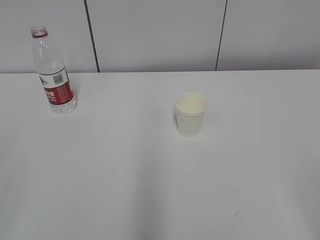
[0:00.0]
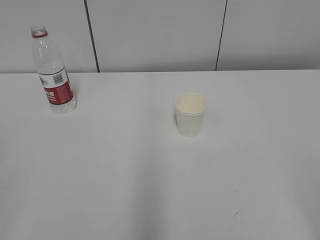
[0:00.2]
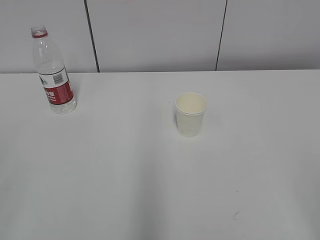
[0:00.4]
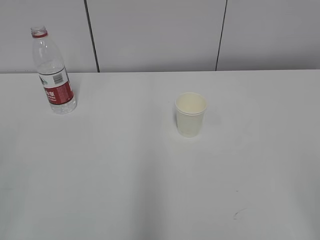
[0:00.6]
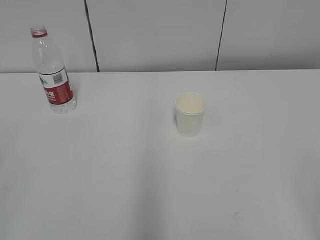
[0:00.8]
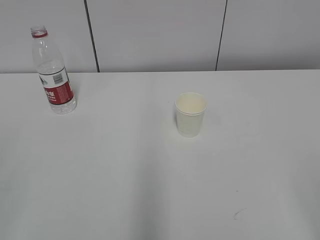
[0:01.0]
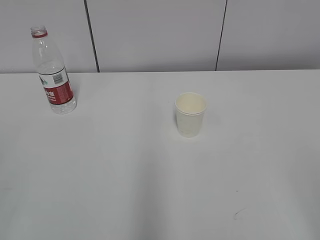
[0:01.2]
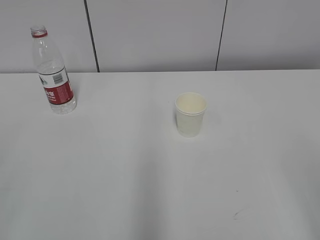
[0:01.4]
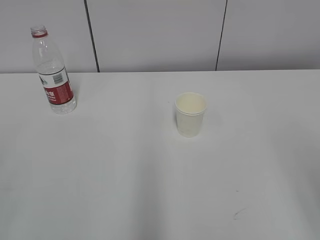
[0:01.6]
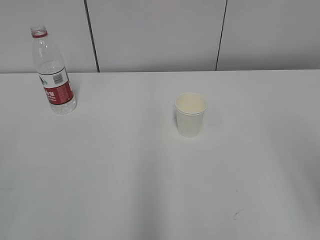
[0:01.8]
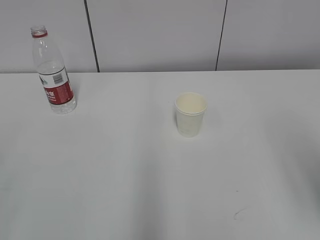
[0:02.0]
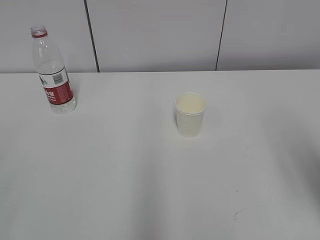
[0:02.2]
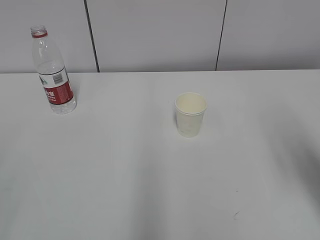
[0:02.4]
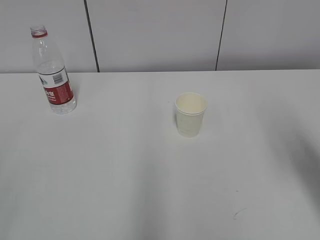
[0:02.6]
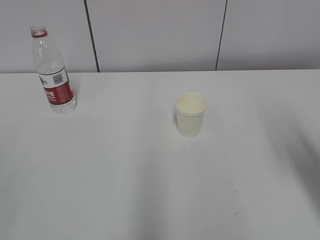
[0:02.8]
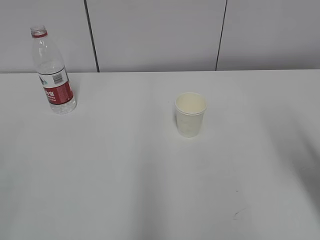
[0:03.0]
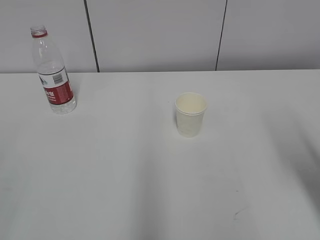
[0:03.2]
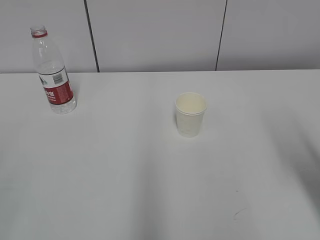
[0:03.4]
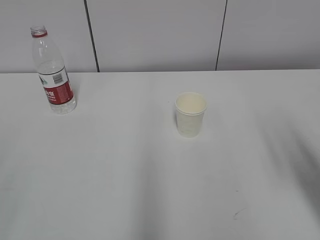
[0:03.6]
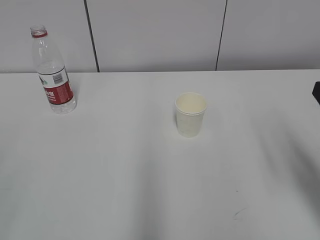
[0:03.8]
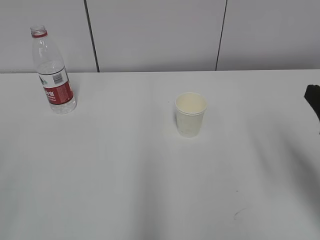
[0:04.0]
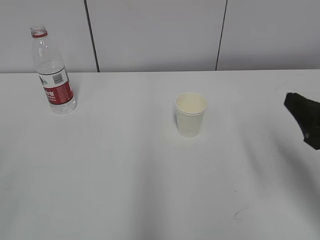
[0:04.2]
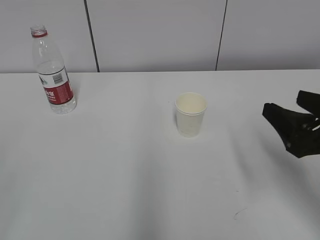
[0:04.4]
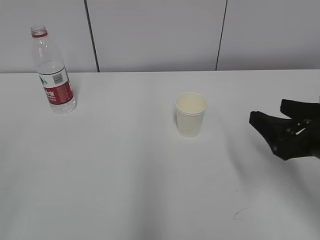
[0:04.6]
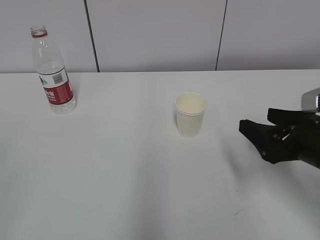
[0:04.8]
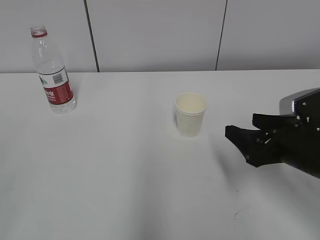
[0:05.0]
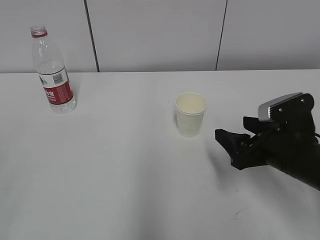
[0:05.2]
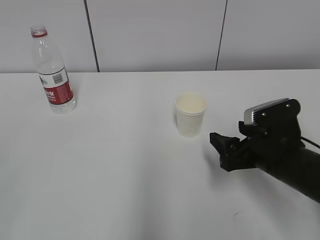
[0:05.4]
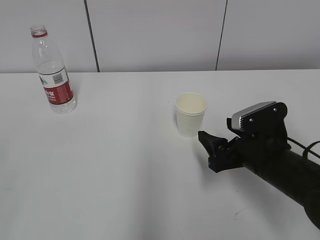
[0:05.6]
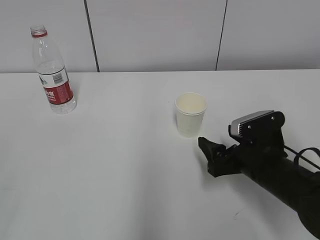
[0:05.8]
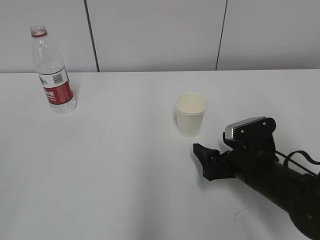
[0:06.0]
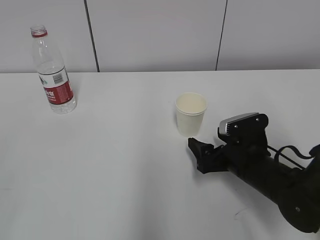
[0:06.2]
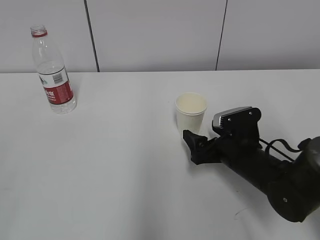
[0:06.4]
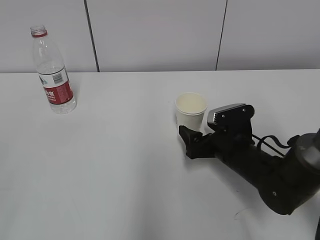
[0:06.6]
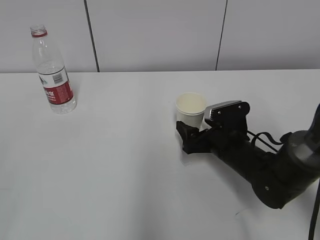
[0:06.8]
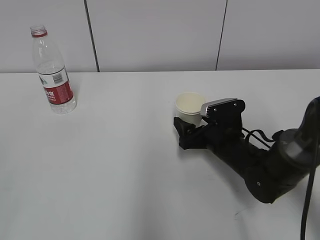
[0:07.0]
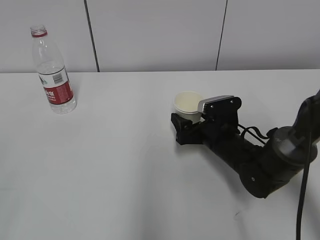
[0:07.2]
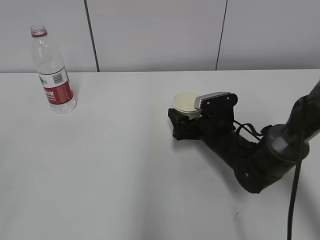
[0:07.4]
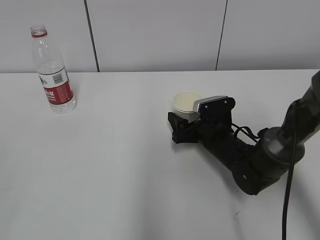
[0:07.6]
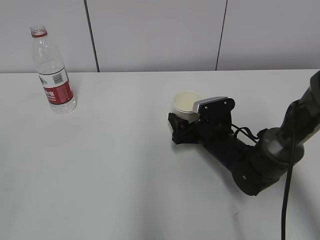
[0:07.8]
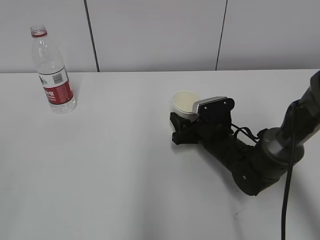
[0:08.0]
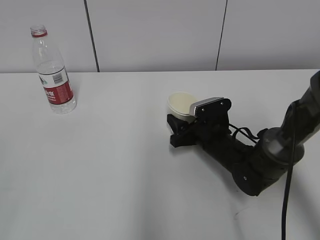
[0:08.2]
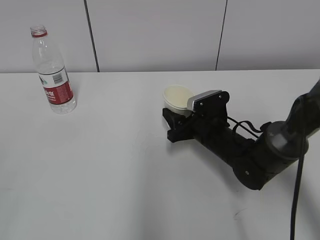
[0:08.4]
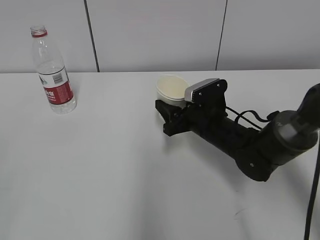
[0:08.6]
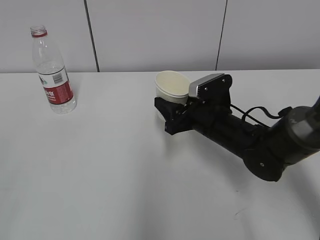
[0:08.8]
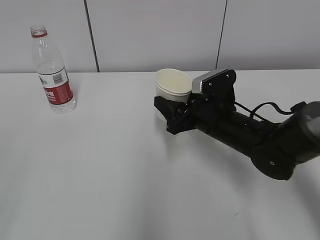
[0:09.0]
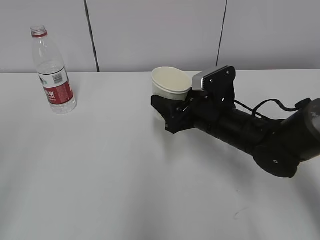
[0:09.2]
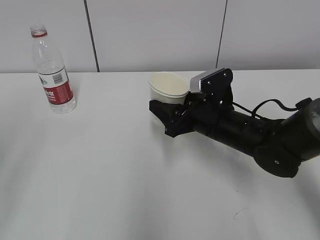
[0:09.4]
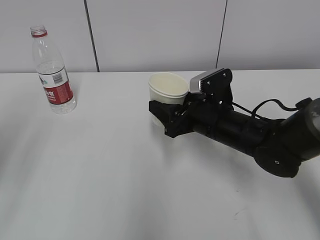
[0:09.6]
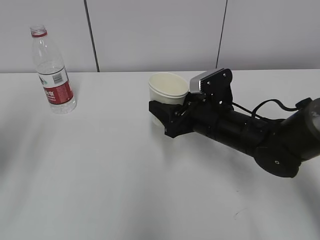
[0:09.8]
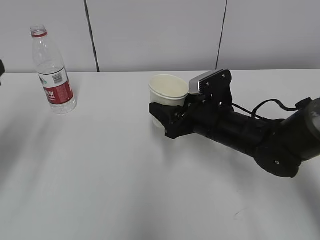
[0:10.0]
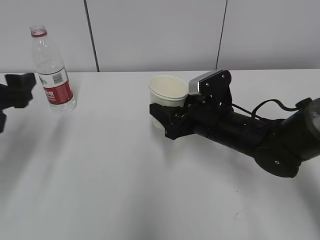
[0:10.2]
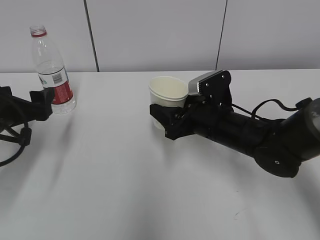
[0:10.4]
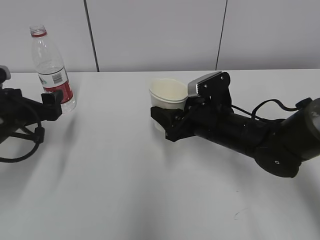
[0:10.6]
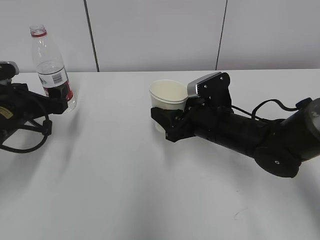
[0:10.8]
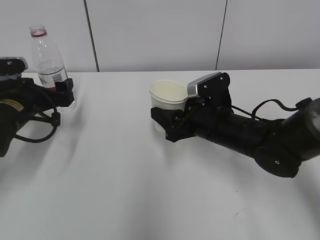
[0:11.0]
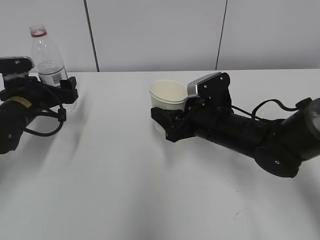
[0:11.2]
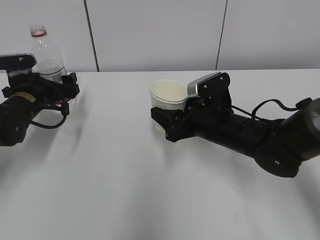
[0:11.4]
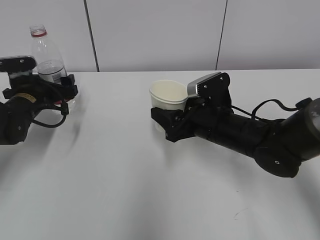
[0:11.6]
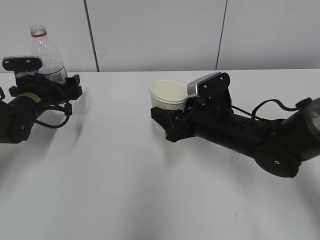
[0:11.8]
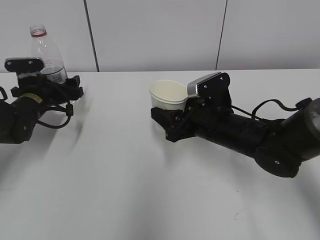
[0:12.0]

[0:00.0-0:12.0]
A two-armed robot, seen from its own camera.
Step, 0:00.0 to 0:06.6: Grab the paper cup with the right hand.
Step, 0:06.8 to 0:10.4: Grab the water bottle with the left hand.
0:01.6 to 0:03.0: The right gripper is displaced forward and downward by roughly 15 cm.
0:03.0 to 0:04.4: The right gripper ends up some 5 cm from where it was, and opens up.
0:04.4 to 0:06.0: The right gripper heads downward, to the left and forward, covering approximately 15 cm, and opens its fingers.
0:06.0 to 0:07.6: The right gripper moves forward, roughly 10 cm.
0:07.6 to 0:09.0: The right gripper heads upward, covering approximately 10 cm, and closes up, while the left gripper opens its fingers.
0:09.0 to 0:10.4: The left gripper travels forward and downward by some 30 cm, and opens its fingers.
0:10.4 to 0:12.0: The left gripper goes about 15 cm forward and downward.

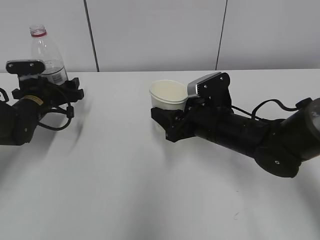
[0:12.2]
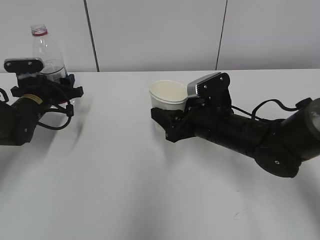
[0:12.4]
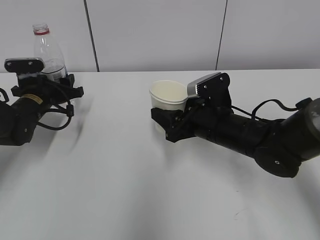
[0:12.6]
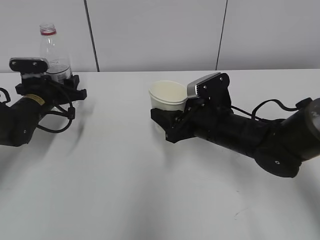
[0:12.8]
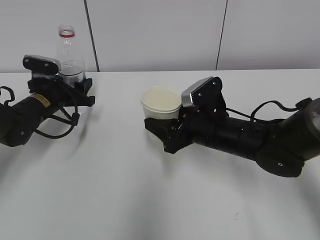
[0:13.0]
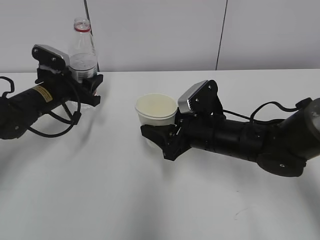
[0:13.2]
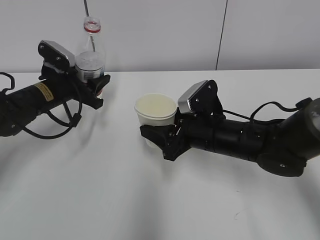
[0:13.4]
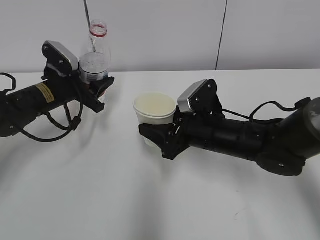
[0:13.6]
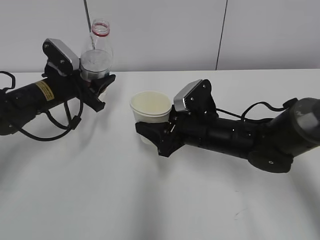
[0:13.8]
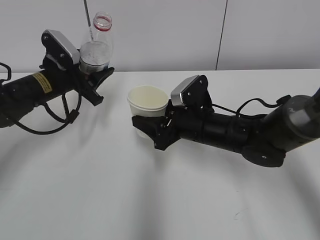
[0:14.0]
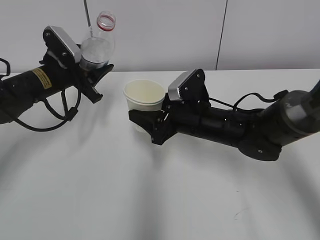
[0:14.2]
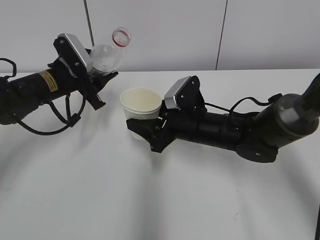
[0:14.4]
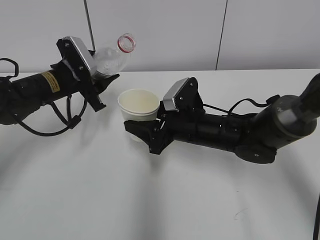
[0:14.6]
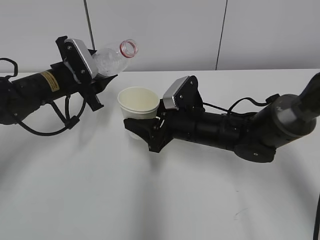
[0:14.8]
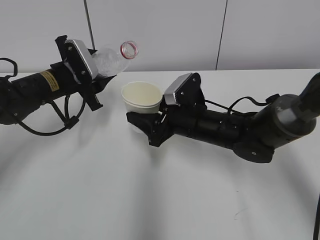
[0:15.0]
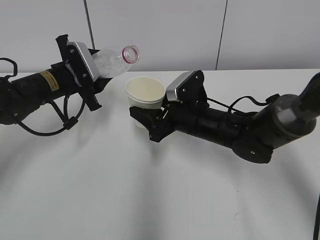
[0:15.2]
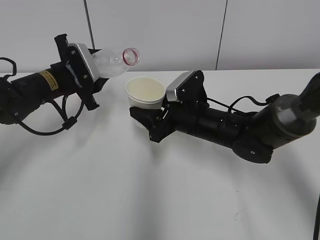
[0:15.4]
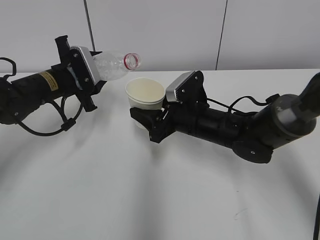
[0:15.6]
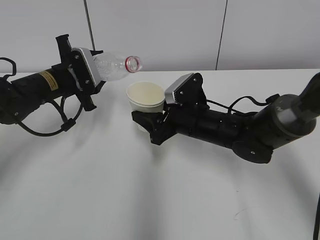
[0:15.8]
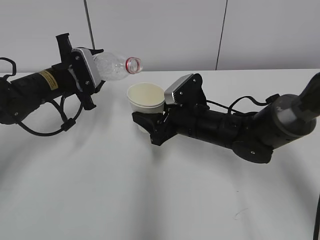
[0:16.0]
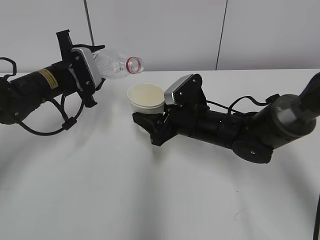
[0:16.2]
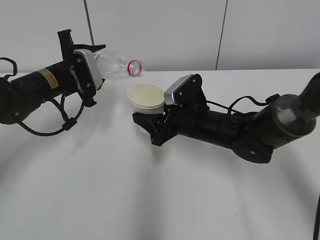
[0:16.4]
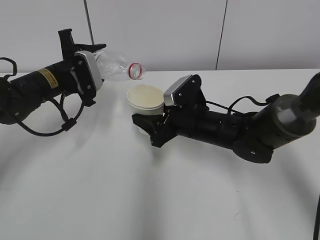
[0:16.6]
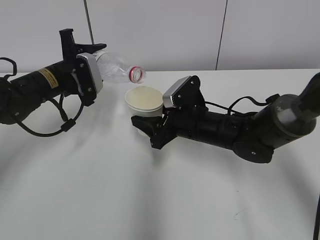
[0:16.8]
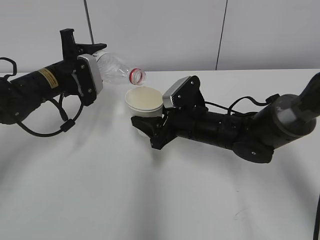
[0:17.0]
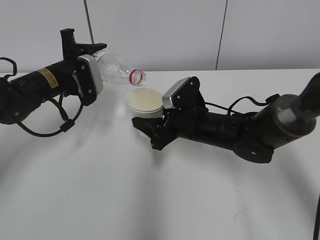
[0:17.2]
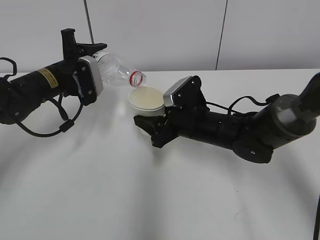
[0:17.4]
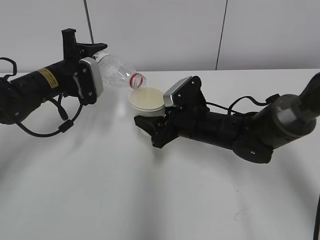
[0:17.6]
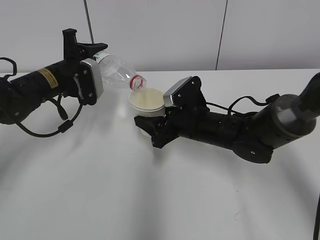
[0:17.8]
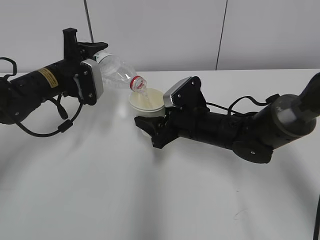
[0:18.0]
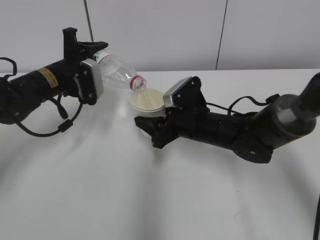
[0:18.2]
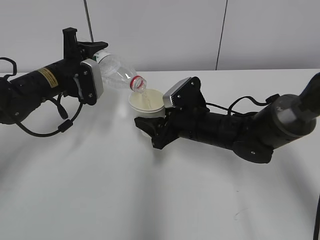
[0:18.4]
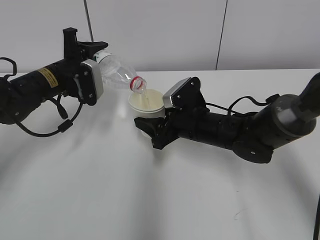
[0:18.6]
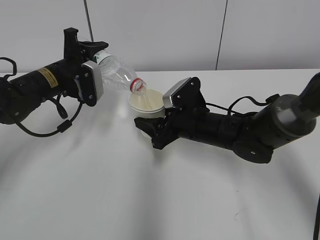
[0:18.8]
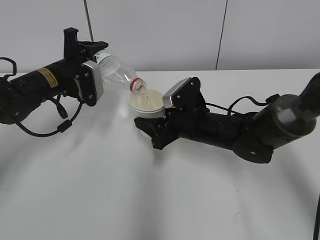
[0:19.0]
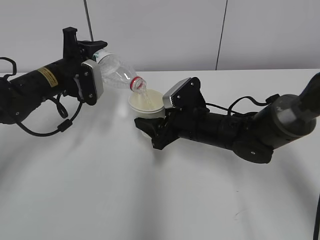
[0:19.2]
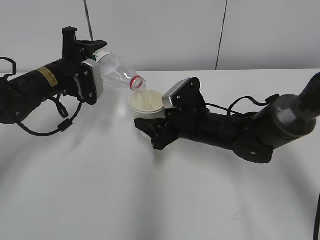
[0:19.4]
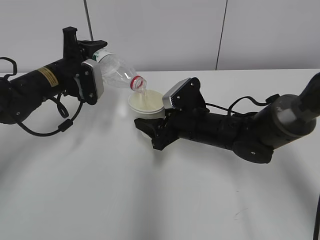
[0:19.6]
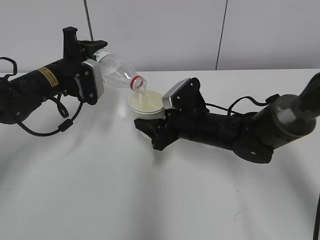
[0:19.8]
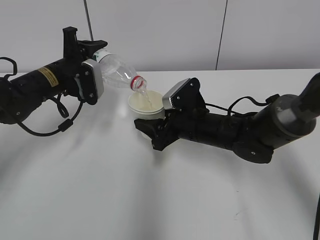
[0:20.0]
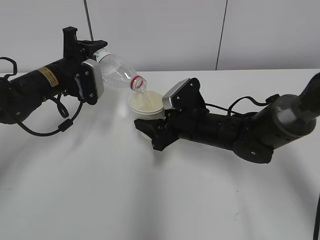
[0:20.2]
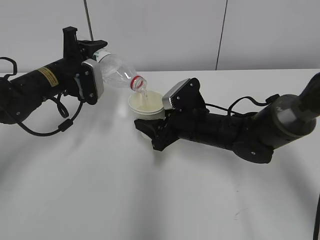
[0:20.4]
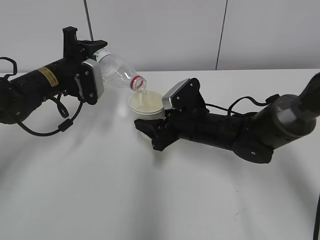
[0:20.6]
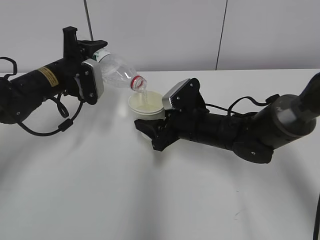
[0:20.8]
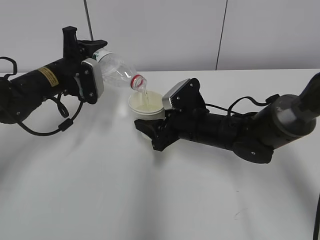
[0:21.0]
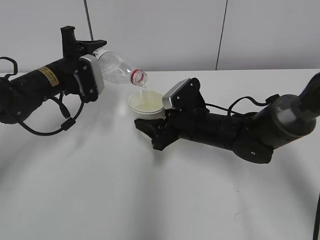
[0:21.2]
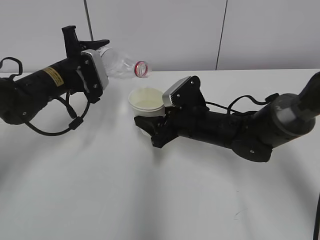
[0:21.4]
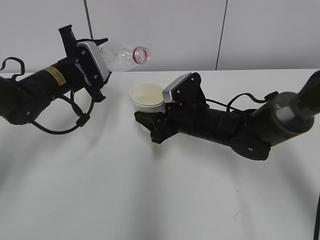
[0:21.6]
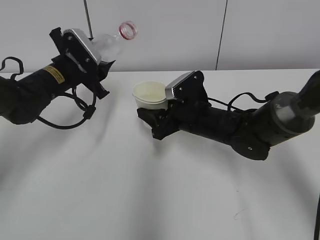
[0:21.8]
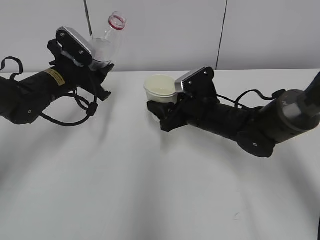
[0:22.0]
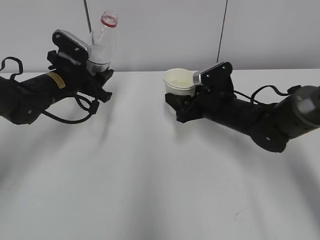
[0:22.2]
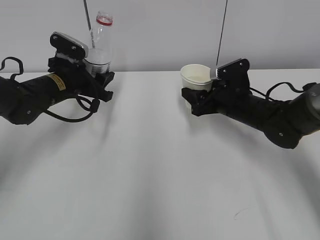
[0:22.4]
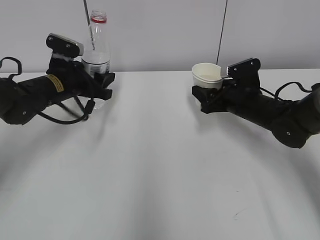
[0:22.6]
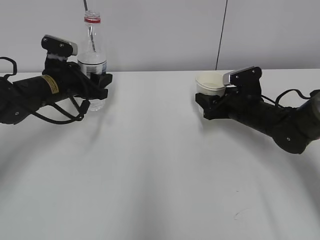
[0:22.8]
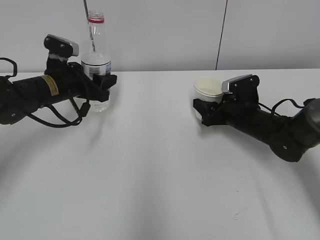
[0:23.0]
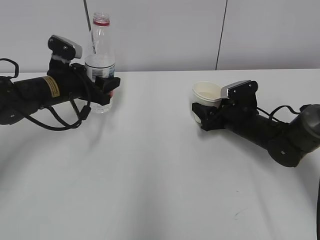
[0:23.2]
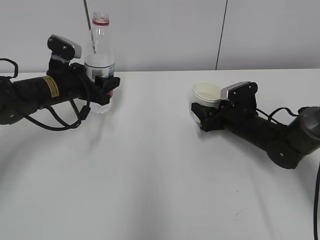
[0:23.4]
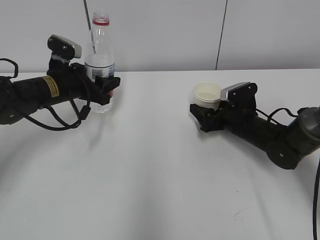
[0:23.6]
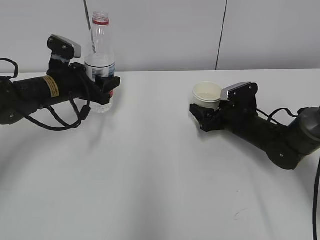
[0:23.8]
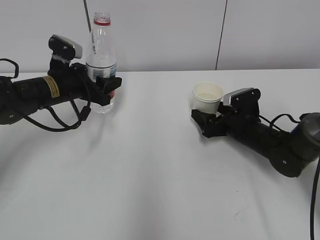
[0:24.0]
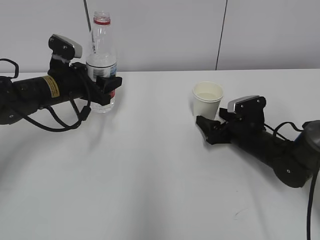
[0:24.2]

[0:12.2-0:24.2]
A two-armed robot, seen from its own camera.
Step, 0:12.2 to 0:14.6: Lift the paper cup with the right hand.
Step, 0:14.8 to 0:17.8: Fill water with the right hand.
Step, 0:14.8 to 0:17.8: Pour water with the left hand.
Step, 0:20.0 to 0:22.4: Place the water bottle with the left hand.
0:12.2 to 0:13.8: The left gripper goes approximately 5 cm to the right, and closes.
0:15.2 to 0:16.6: The grippers stay close to where they were, moving slightly.
0:16.6 to 0:18.2: The grippers make only small movements.
0:18.2 to 0:19.8: Both grippers stay put.
0:19.8 to 0:21.2: The grippers stay close to where they were, moving slightly.
0:21.2 to 0:22.6: The right gripper moves to the right, approximately 10 cm.
0:22.6 to 0:24.2: The right gripper heads downward, covering about 5 cm, and opens.
